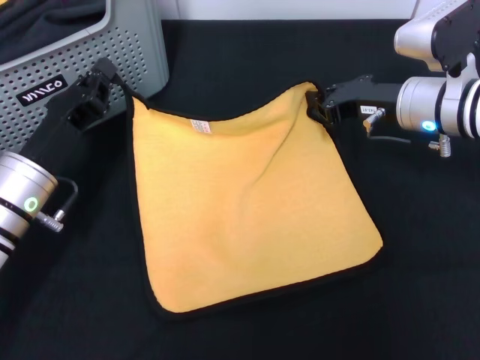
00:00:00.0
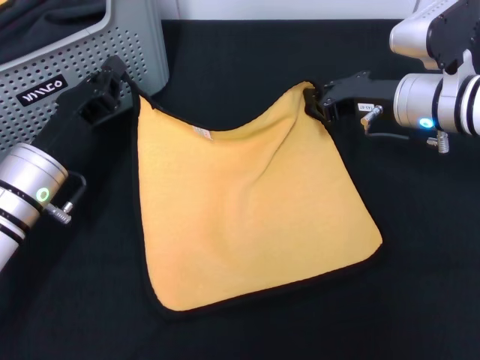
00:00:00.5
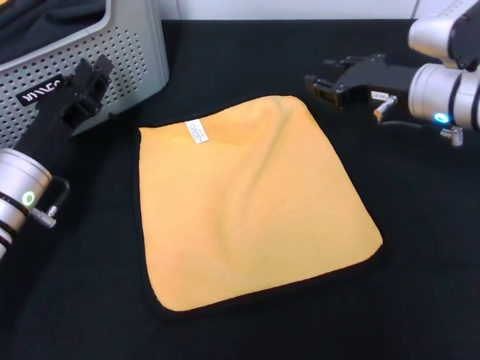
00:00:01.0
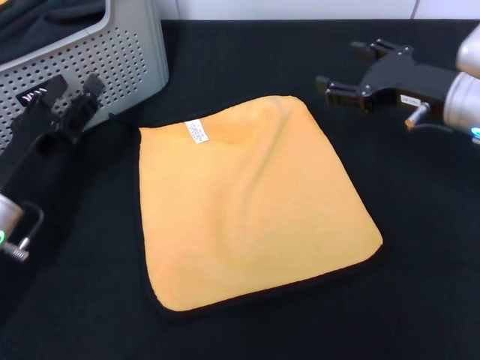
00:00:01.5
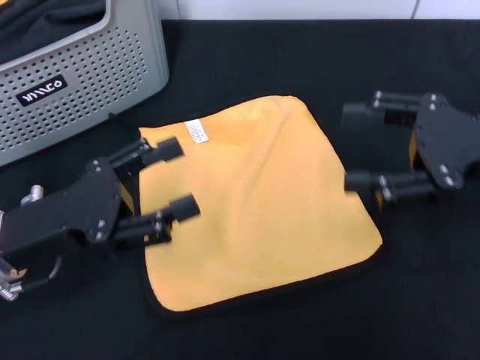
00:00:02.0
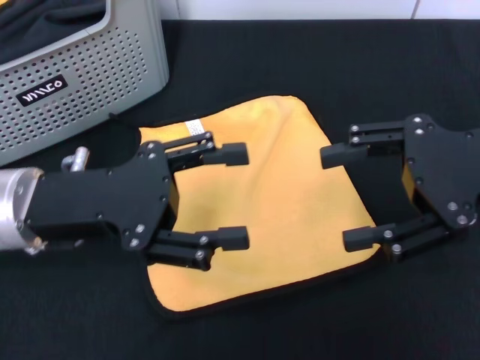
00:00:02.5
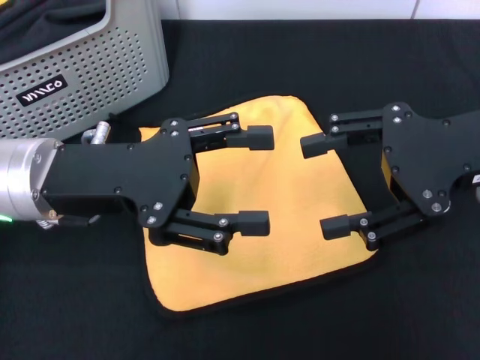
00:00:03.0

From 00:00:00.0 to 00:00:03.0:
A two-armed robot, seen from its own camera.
Task of the whole recording: pick up the towel from the storage box and lay it flat on the black tablecloth.
From 00:00:00.0 to 00:00:01.5: The left gripper opens. The right gripper moves some 5 cm, and opens.
From 00:00:01.5 to 00:00:03.0: The right gripper travels upward and backward by about 10 cm. The left gripper goes some 15 cm upward and to the right.

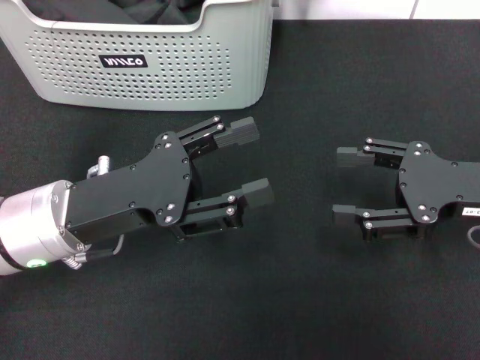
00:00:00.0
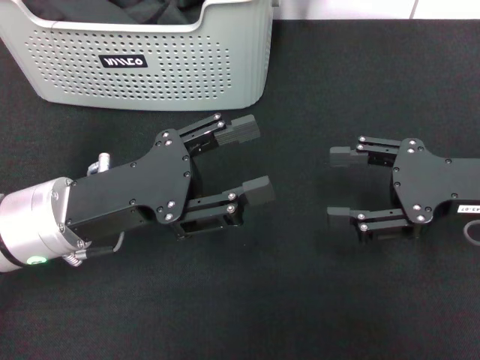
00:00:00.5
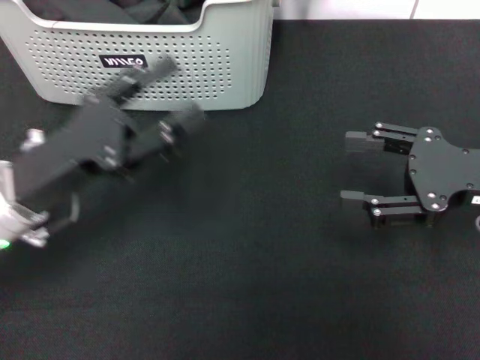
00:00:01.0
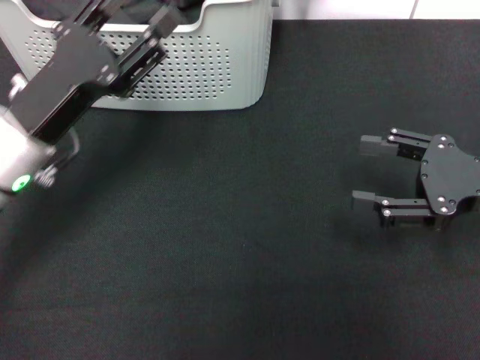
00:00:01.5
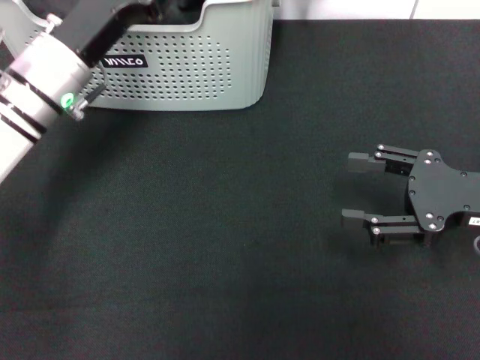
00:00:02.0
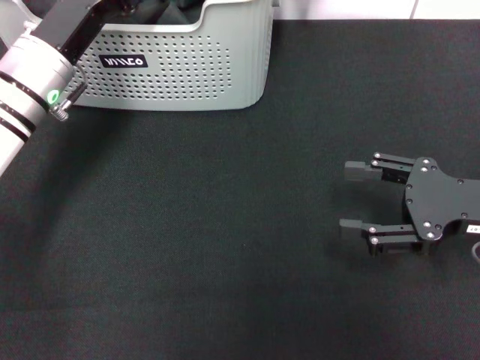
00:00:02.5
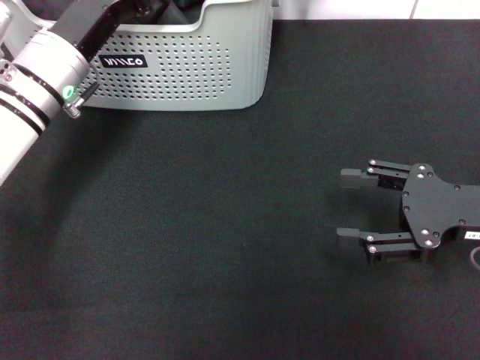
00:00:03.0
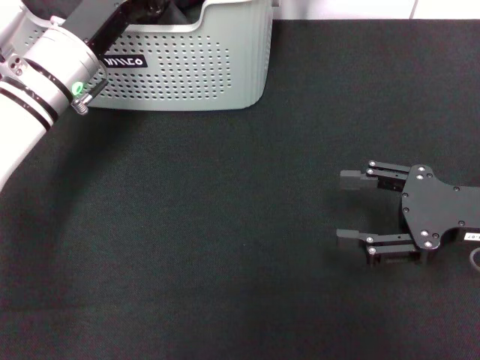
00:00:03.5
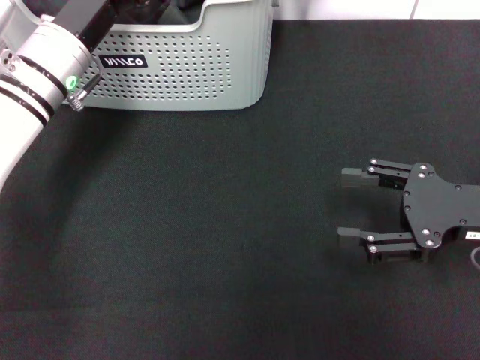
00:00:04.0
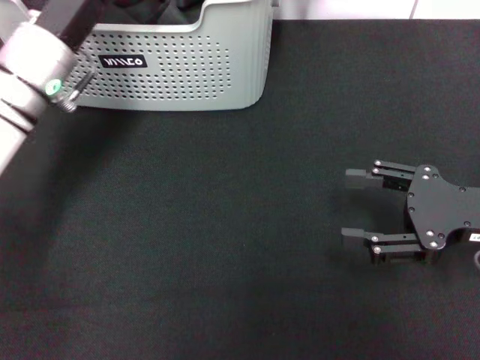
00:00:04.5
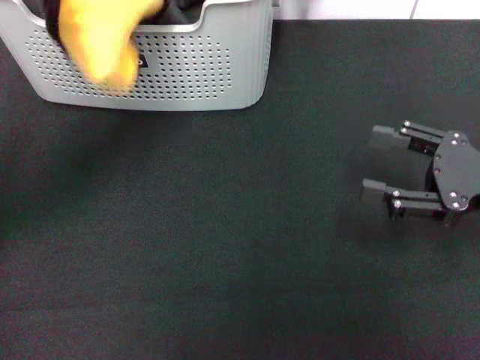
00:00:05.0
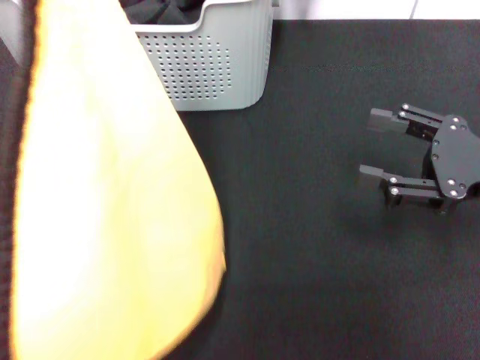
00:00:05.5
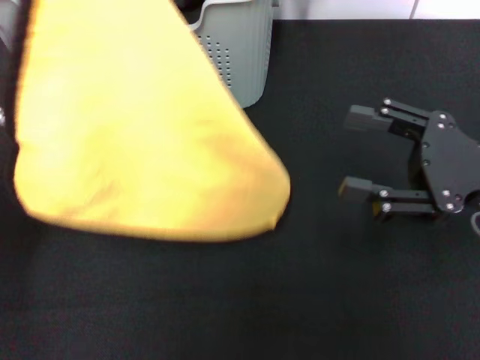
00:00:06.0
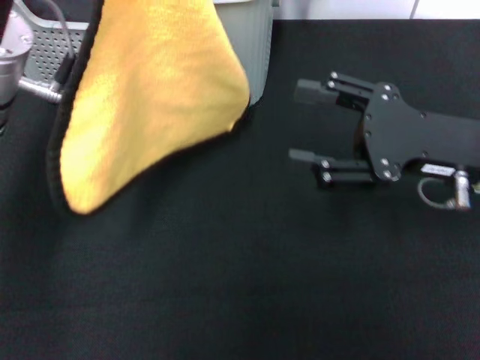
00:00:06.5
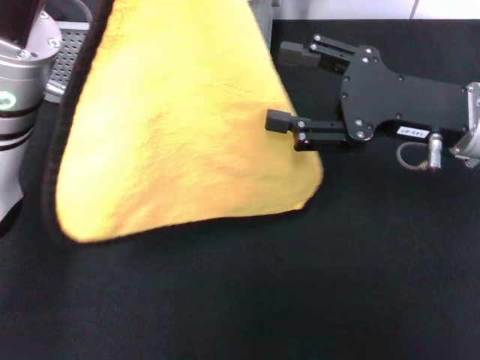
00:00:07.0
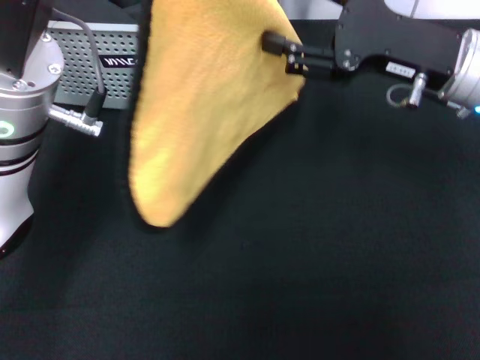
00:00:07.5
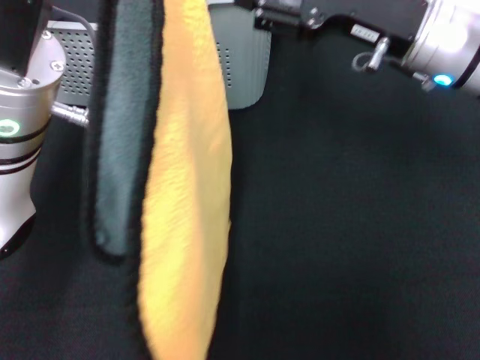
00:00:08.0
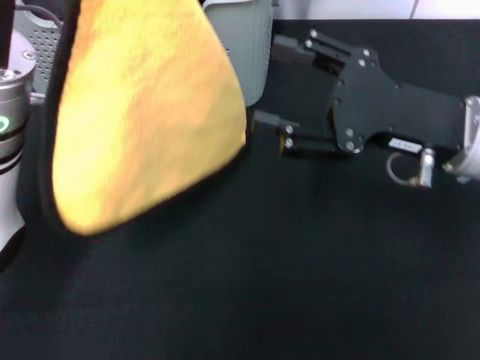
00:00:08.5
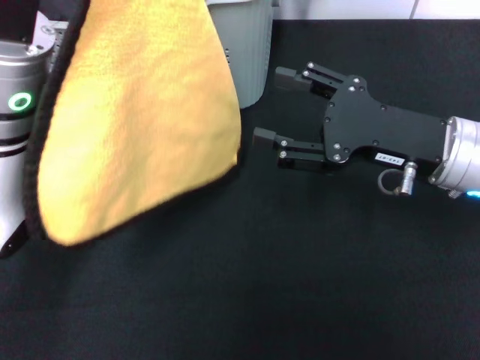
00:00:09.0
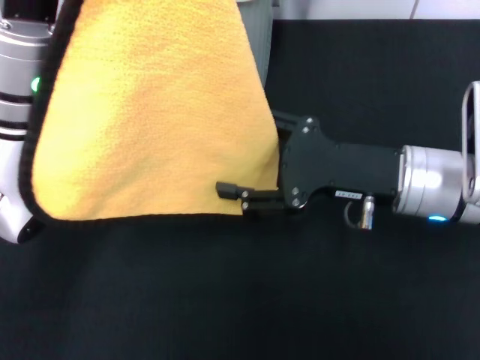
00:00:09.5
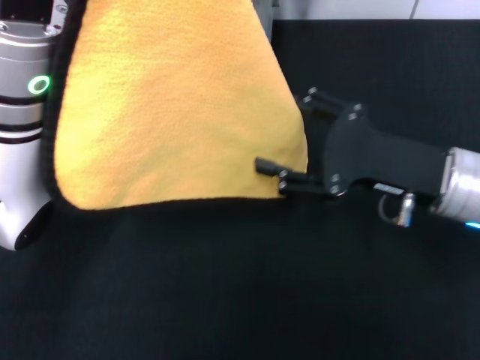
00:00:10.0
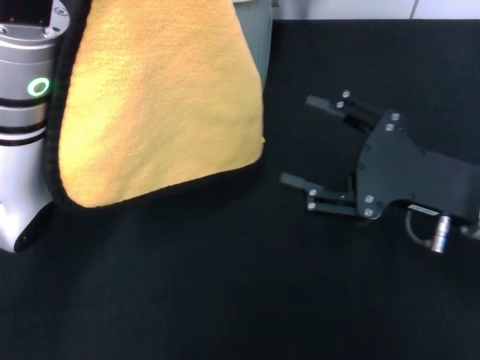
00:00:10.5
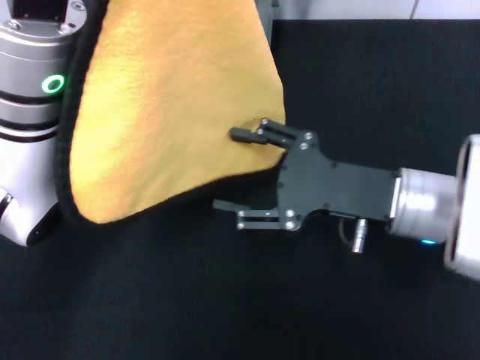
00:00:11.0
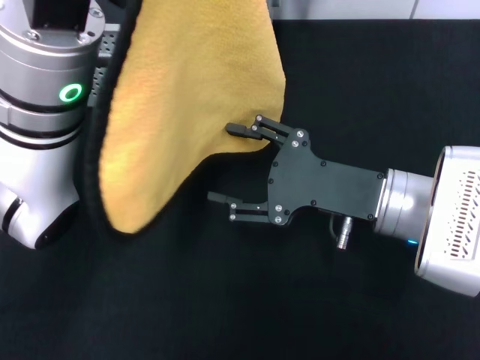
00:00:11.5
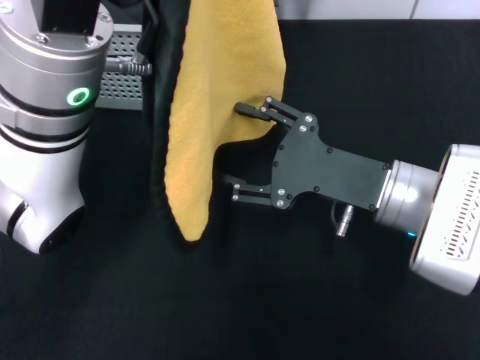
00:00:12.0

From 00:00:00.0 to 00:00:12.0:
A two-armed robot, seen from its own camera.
Task of the whole recording: pick up the towel from the storage box and lay it flat on the black tablecloth.
Step, from 00:00:00.0 to 00:00:04.5: Pick up a towel with the left gripper.
From 00:00:00.0 to 00:00:02.0: The left gripper goes some 10 cm forward.
From 00:00:02.0 to 00:00:04.0: The left gripper closes its fingers.
From 00:00:04.0 to 00:00:06.0: The left gripper is displaced backward and upward by about 15 cm.
From 00:00:06.0 to 00:00:08.0: The right gripper goes roughly 15 cm forward and to the left; the left gripper heads to the right, covering approximately 5 cm.
From 00:00:08.0 to 00:00:10.0: The right gripper is displaced backward and downward by approximately 10 cm.

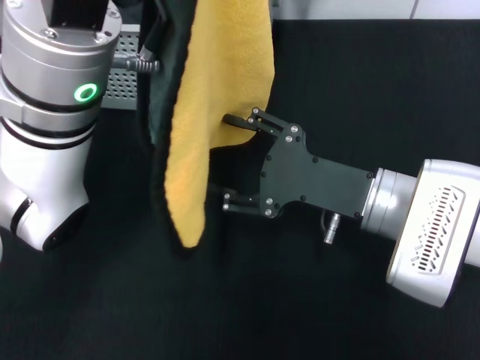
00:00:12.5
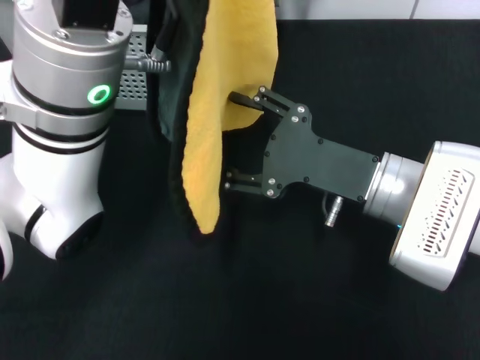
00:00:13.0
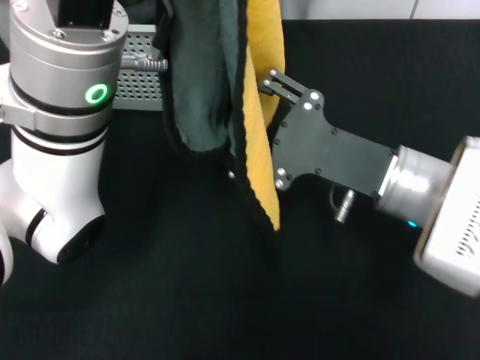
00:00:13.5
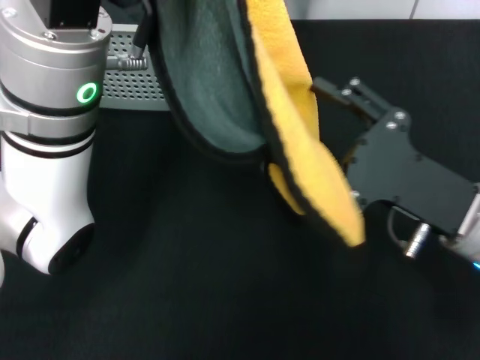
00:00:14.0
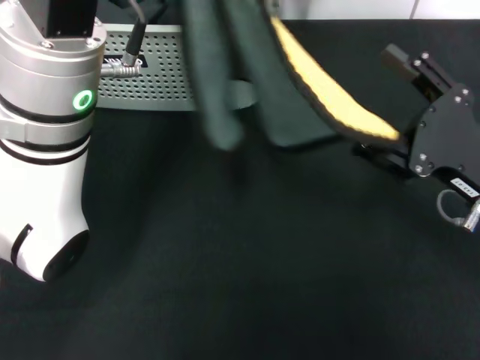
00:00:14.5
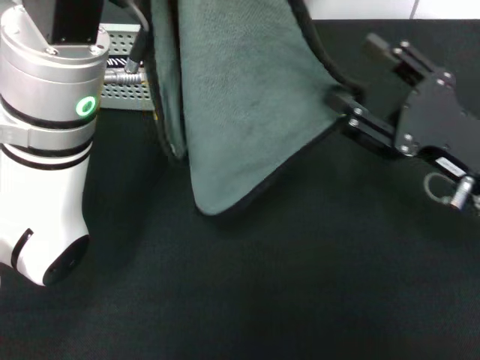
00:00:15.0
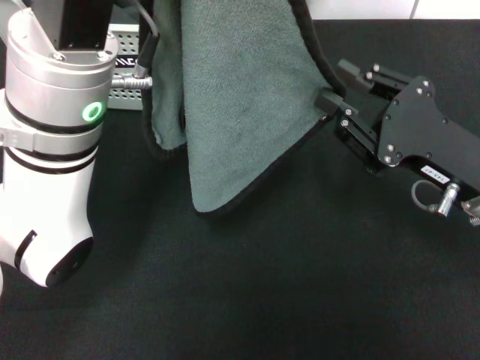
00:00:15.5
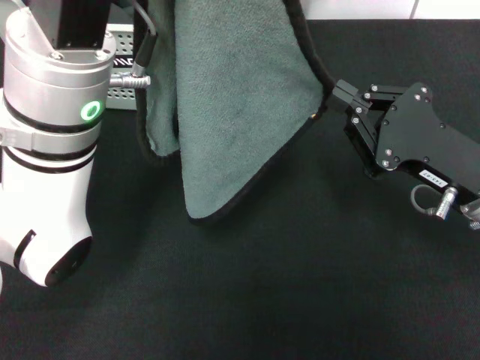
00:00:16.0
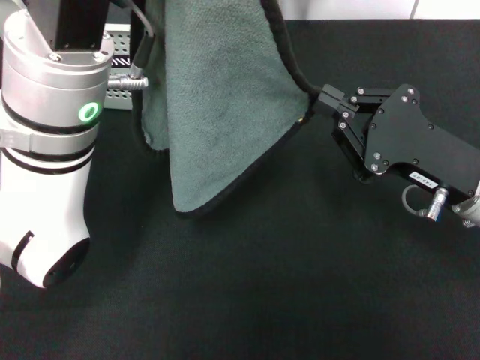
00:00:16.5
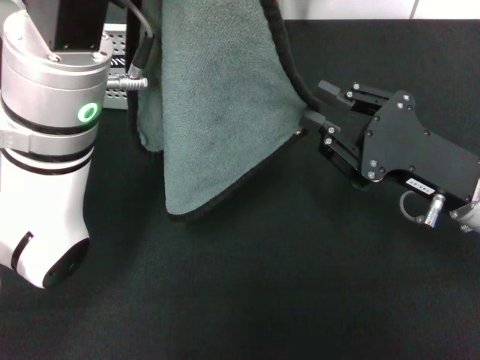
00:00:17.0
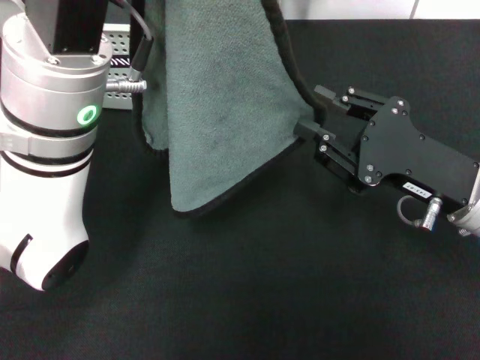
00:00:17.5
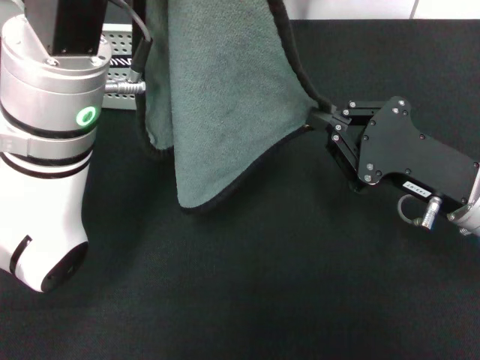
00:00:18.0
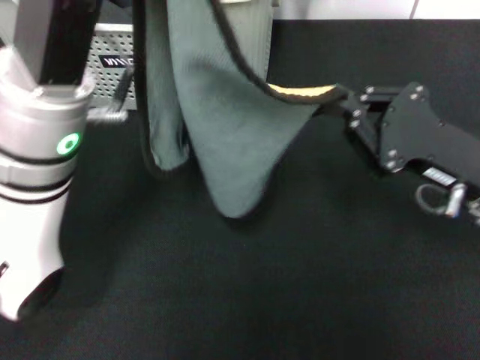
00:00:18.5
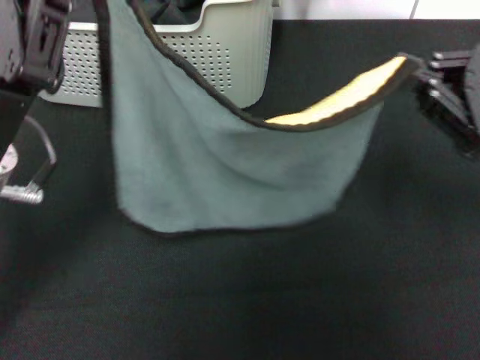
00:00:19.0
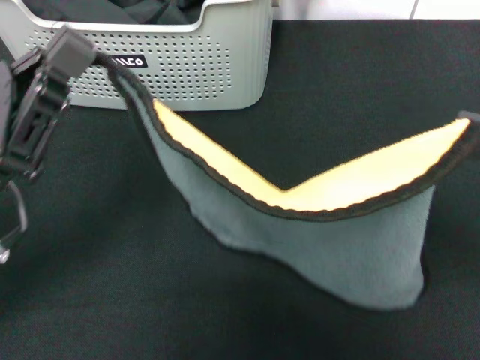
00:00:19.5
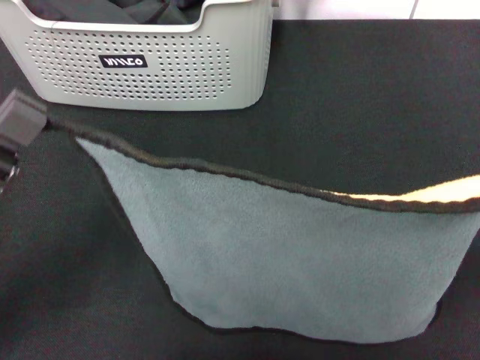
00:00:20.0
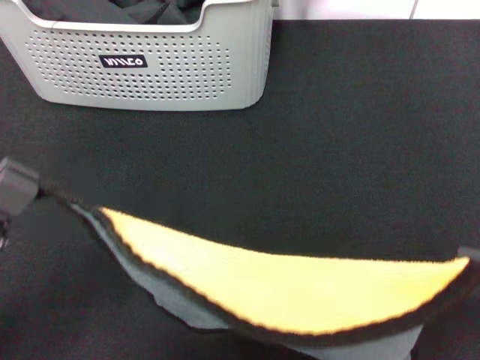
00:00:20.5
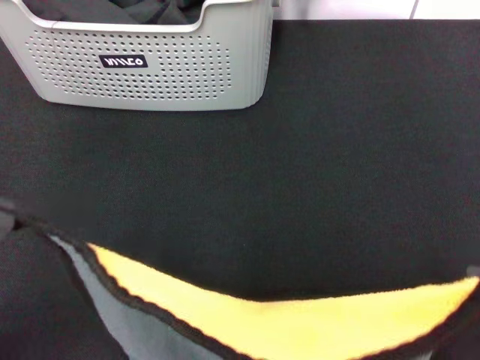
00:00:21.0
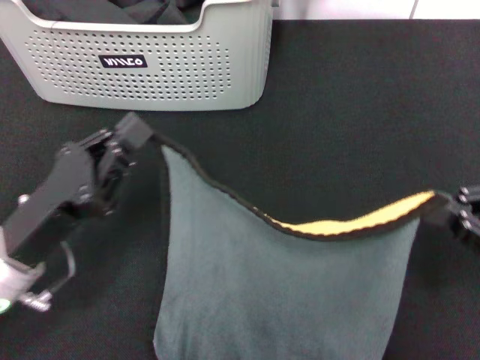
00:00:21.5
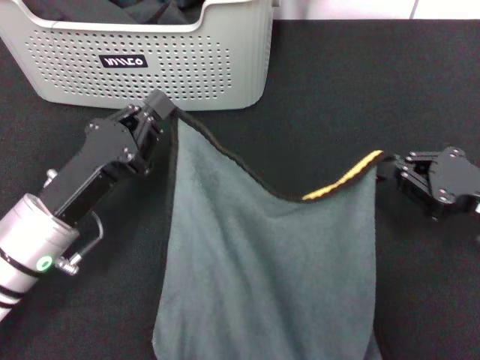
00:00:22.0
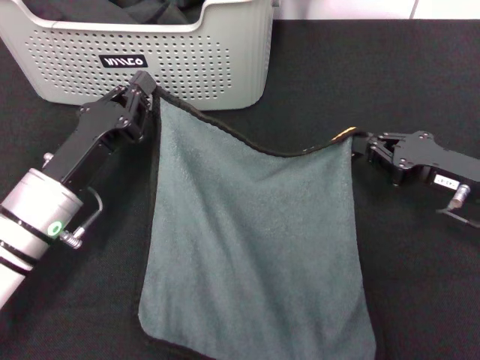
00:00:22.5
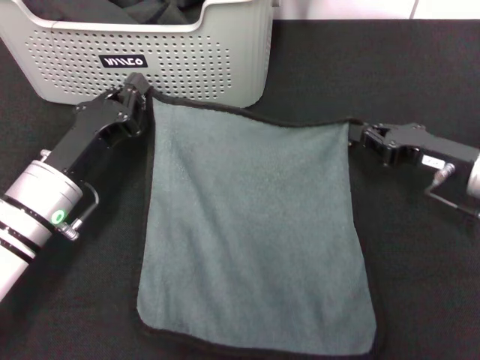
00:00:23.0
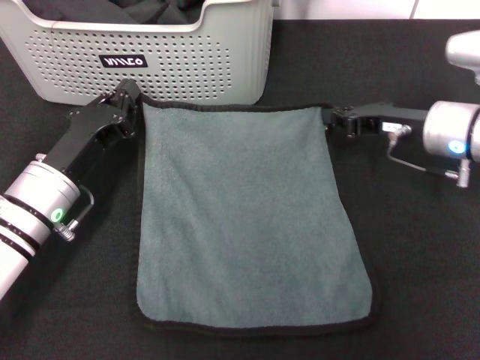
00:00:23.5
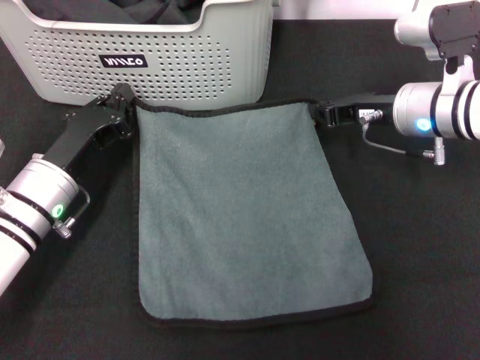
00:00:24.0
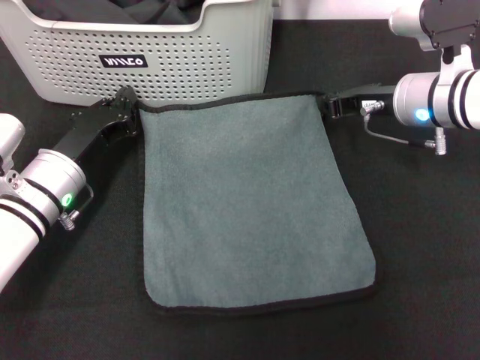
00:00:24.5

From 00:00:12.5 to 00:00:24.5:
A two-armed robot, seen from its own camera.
Task of the whole recording: pick up the towel from the storage box and lay it flat on the black tablecloth.
Step, from 00:00:12.5 to 00:00:16.0: Spread the towel flat with the left gripper.
From 00:00:12.5 to 00:00:14.5: The right gripper goes roughly 10 cm to the right.
From 00:00:14.5 to 00:00:16.5: The right gripper closes up.
From 00:00:16.5 to 00:00:18.5: The right gripper opens, then closes once more.
From 00:00:18.5 to 00:00:20.5: The right gripper travels backward, upward and to the right by approximately 15 cm. The left gripper shifts about 20 cm backward, to the left and downward.
From 00:00:20.5 to 00:00:22.5: Both grippers travel together forward and downward, about 20 cm.
From 00:00:22.5 to 00:00:24.5: The left gripper moves some 5 cm, while the right gripper shifts some 15 cm forward and to the left.
